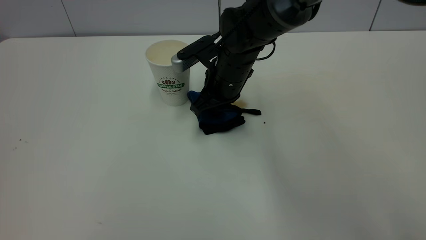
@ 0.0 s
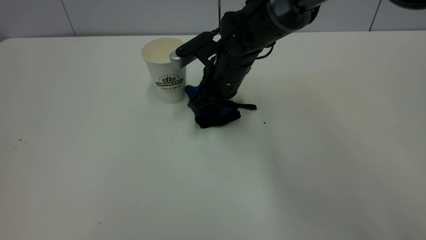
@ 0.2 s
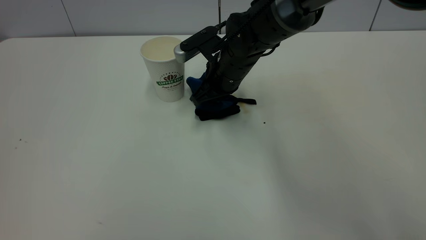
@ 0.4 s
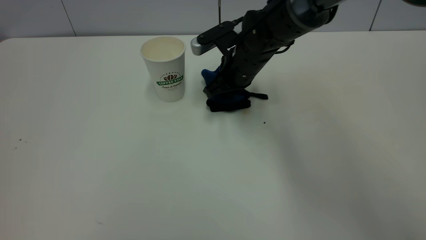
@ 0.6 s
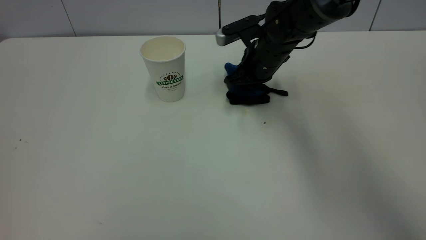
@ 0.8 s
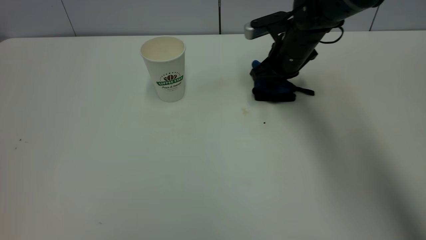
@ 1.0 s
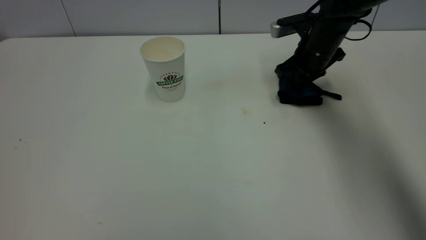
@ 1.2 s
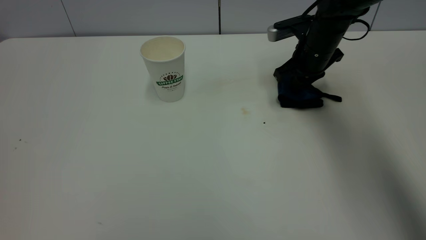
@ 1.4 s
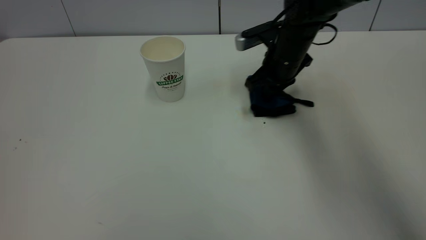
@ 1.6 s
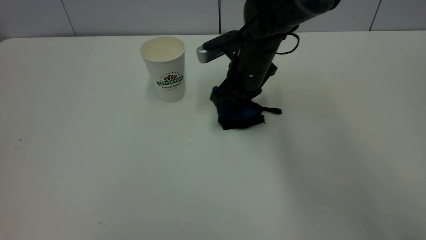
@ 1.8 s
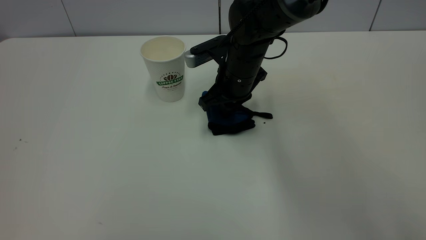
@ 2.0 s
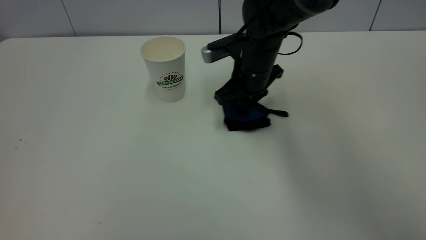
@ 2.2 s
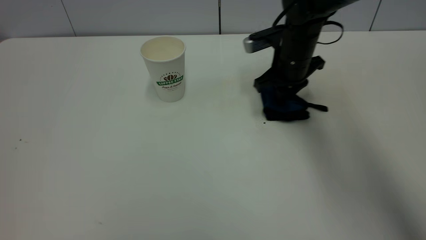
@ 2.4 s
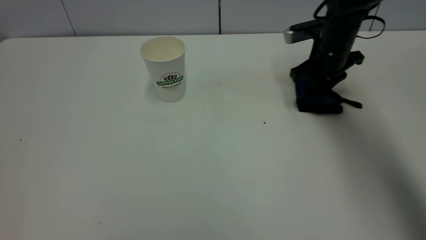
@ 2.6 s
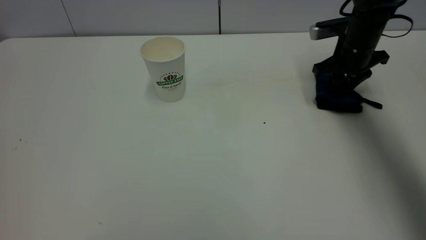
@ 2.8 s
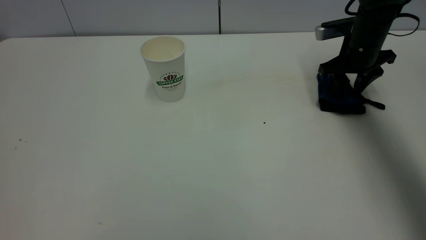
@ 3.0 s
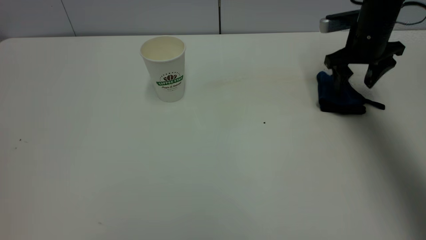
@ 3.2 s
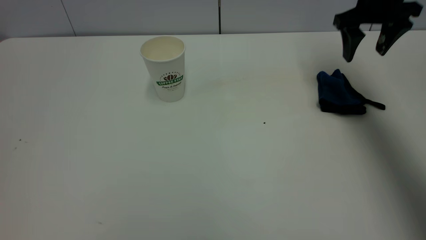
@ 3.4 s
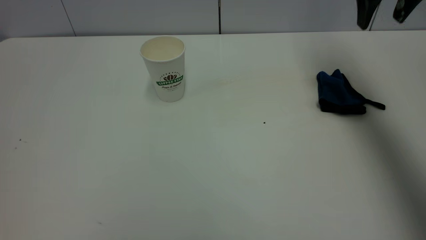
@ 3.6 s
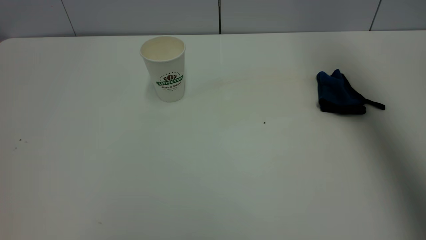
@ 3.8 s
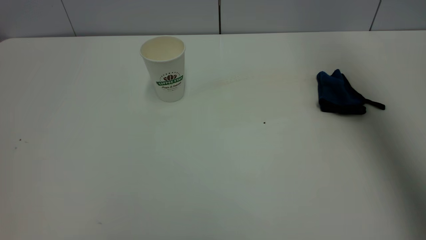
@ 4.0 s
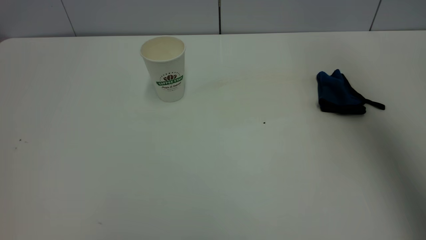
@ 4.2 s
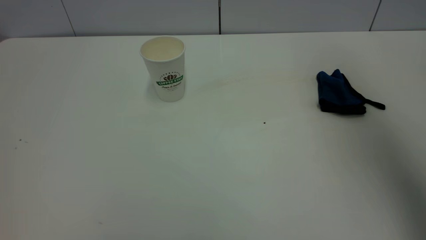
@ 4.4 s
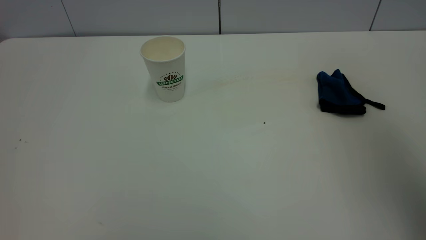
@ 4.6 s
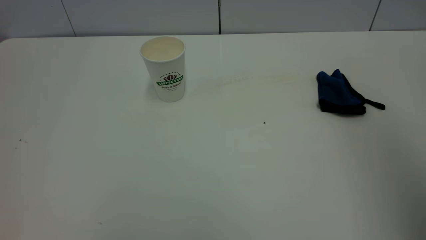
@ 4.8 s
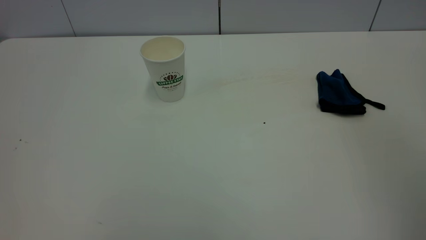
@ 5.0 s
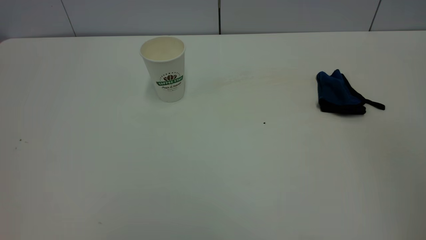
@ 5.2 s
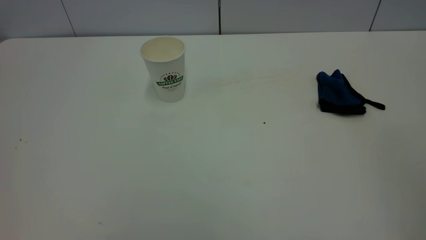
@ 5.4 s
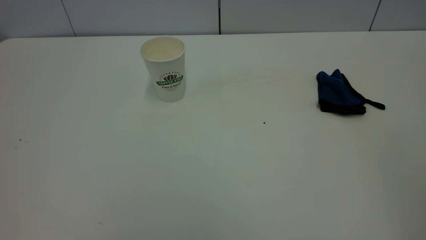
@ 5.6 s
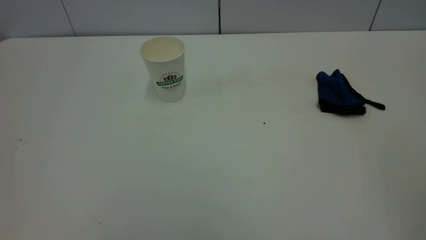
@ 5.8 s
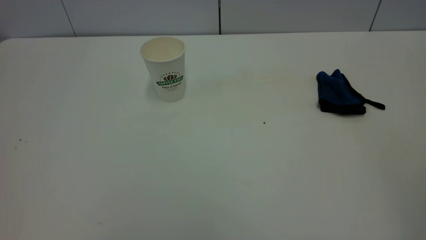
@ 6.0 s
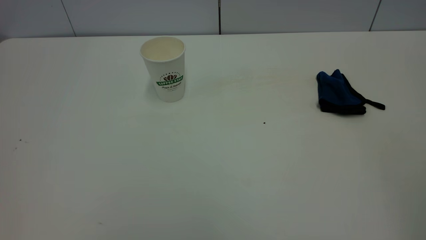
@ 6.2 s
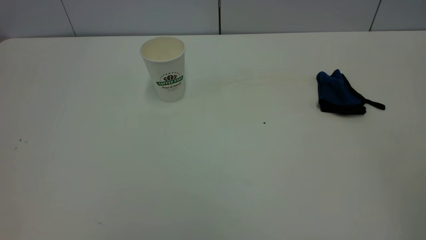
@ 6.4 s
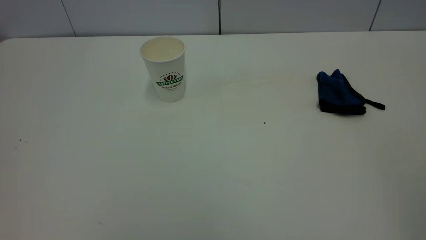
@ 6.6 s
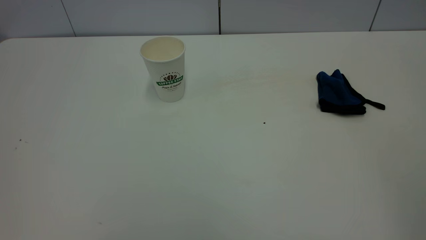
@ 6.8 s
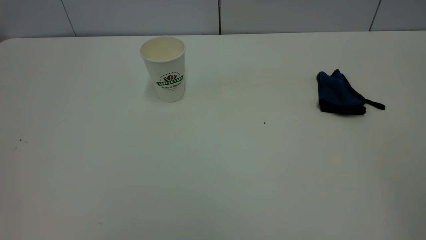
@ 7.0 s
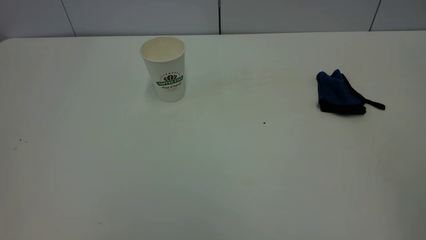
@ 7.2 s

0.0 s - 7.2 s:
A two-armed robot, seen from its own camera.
Task of the whole recording: the left gripper pick up the fallen cup and place it upright, the right gripper grasp the blue rag and wipe the tea stain on the table, the right gripper put the blue rag back in its original position.
Step, 0.0 s - 3.4 s: Wipe the stains off the table with a rag.
0.0 s - 1.4 s: The right gripper is displaced to the right by approximately 15 cm.
1.4 s - 2.8 s: The right gripper is displaced to the right by roughly 10 cm, and opens.
2.8 s - 4.4 s: The right gripper travels upward and backward by about 35 cm.
4.4 s - 5.8 s: The right gripper moves backward, roughly 30 cm.
5.8 s - 7.2 s: Both grippers stay about where they are.
